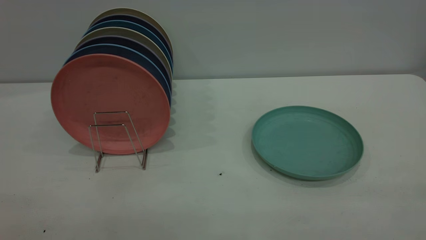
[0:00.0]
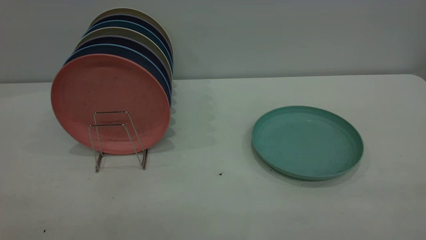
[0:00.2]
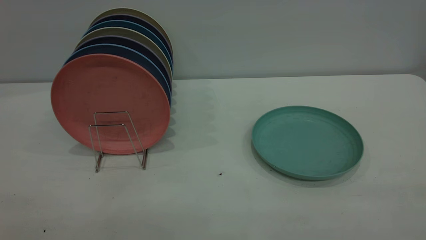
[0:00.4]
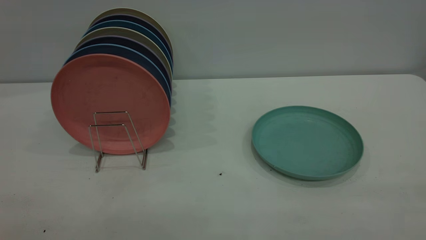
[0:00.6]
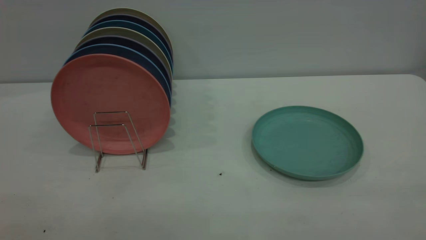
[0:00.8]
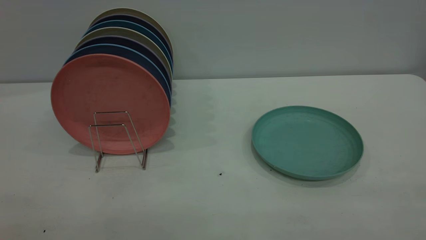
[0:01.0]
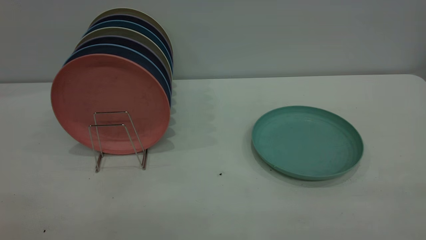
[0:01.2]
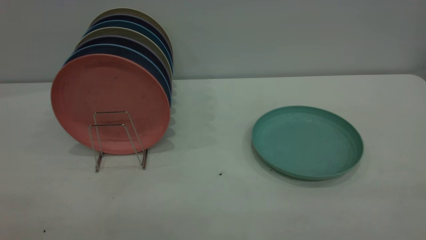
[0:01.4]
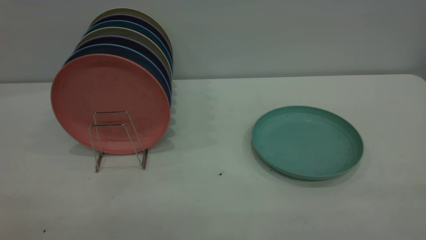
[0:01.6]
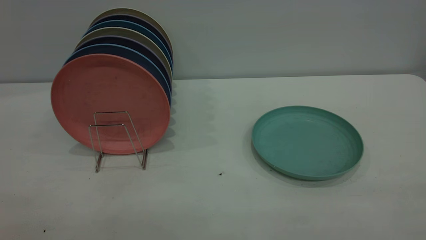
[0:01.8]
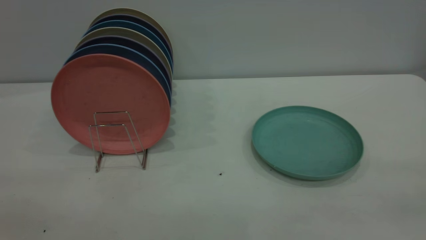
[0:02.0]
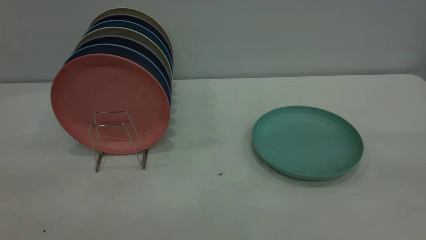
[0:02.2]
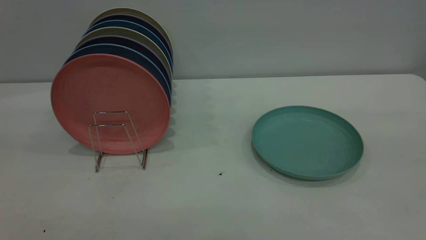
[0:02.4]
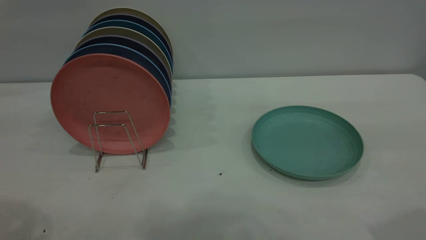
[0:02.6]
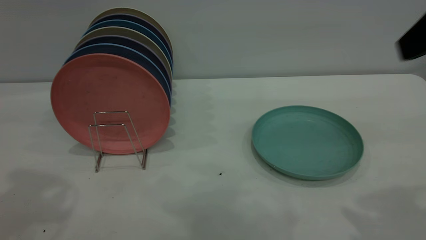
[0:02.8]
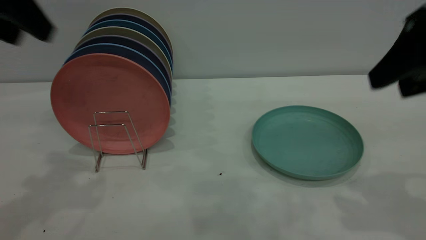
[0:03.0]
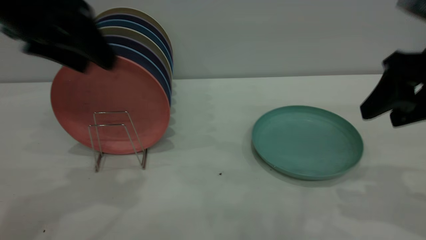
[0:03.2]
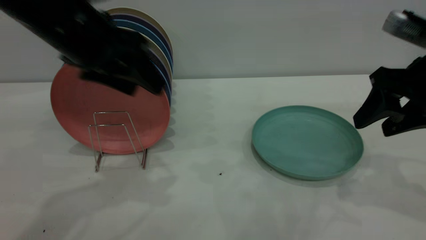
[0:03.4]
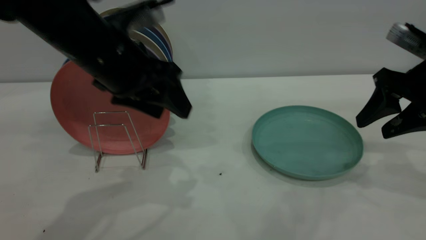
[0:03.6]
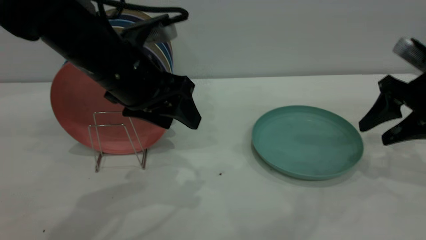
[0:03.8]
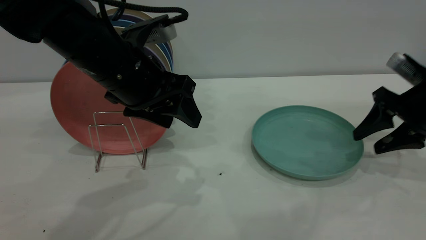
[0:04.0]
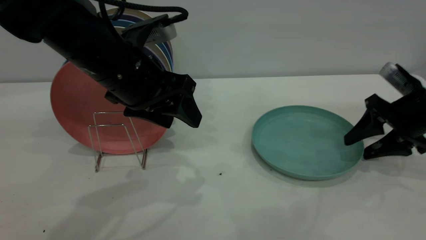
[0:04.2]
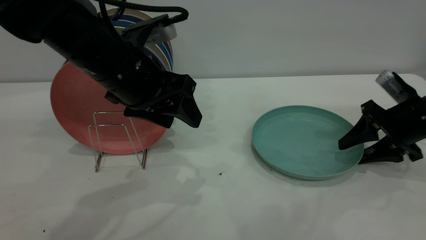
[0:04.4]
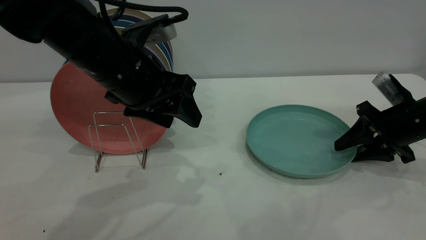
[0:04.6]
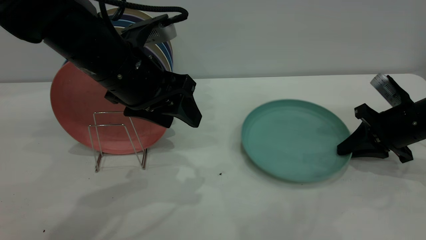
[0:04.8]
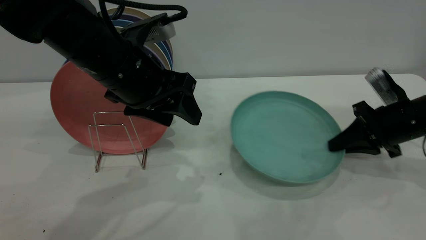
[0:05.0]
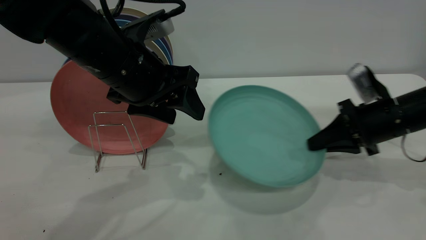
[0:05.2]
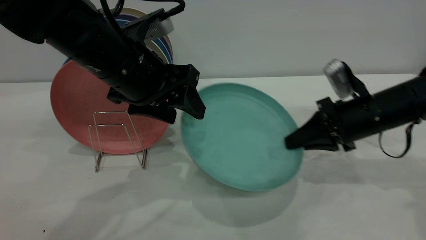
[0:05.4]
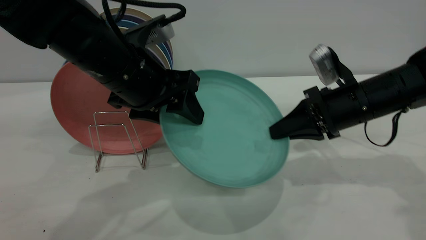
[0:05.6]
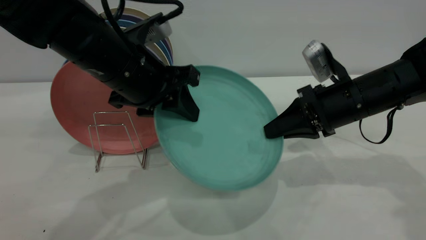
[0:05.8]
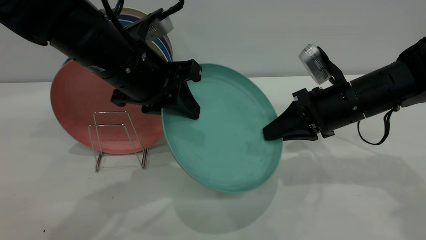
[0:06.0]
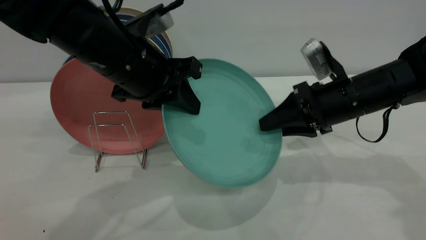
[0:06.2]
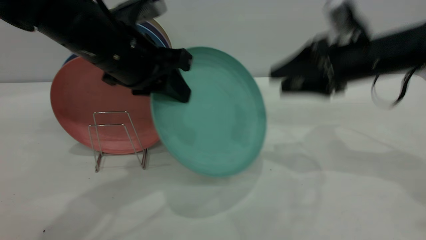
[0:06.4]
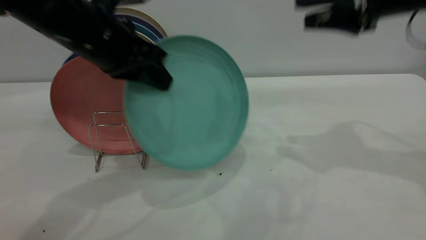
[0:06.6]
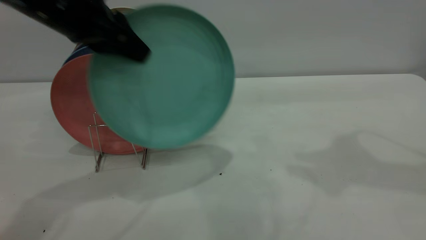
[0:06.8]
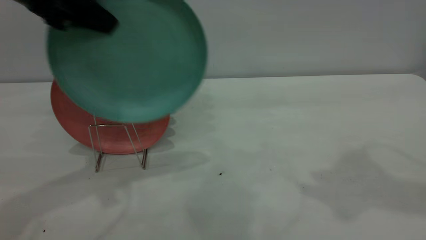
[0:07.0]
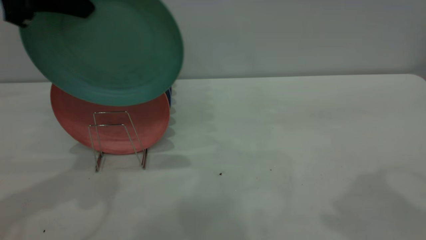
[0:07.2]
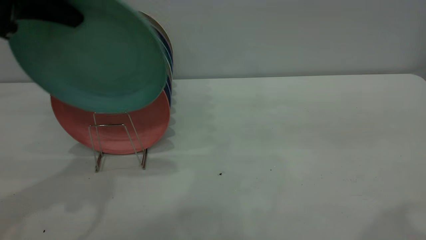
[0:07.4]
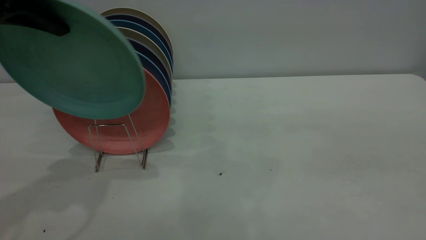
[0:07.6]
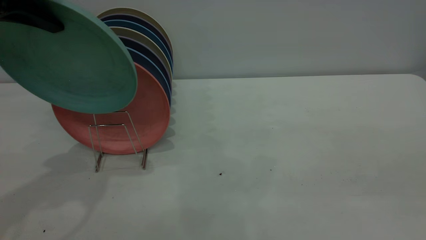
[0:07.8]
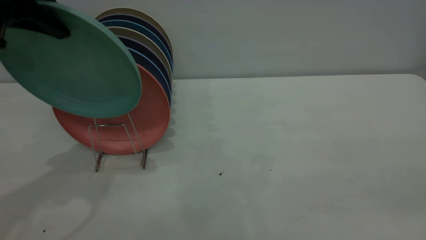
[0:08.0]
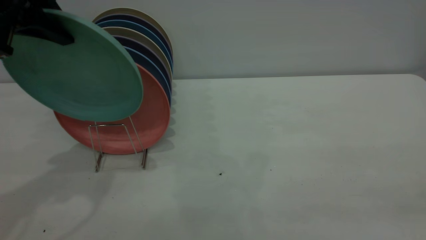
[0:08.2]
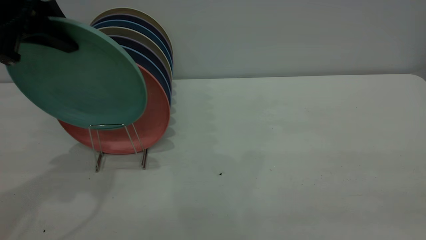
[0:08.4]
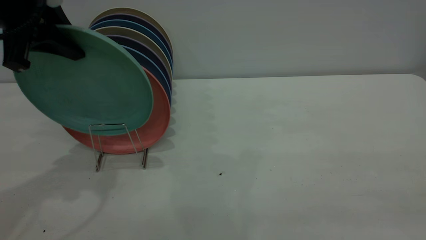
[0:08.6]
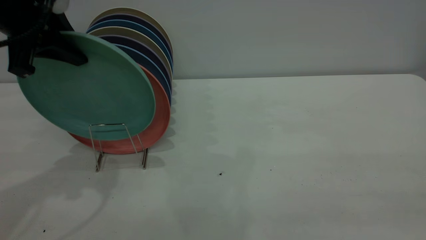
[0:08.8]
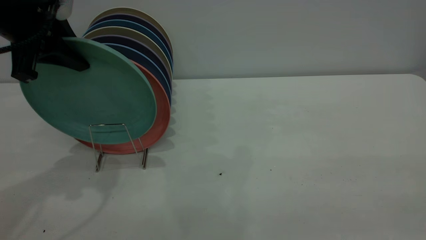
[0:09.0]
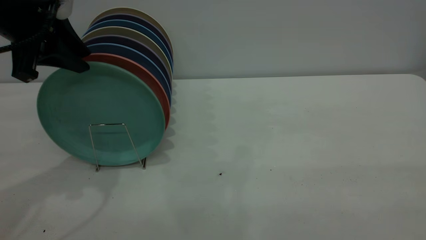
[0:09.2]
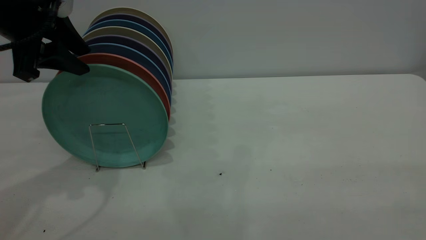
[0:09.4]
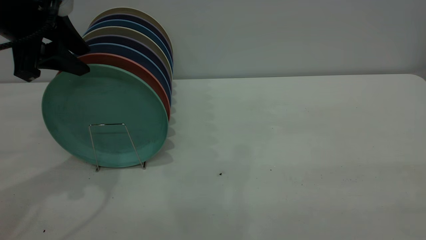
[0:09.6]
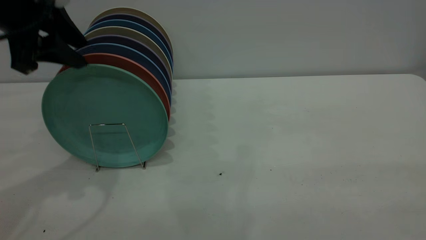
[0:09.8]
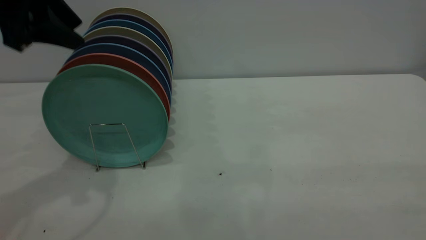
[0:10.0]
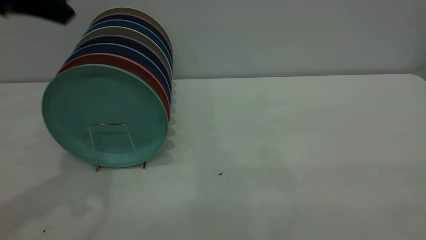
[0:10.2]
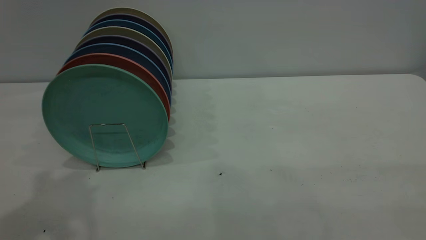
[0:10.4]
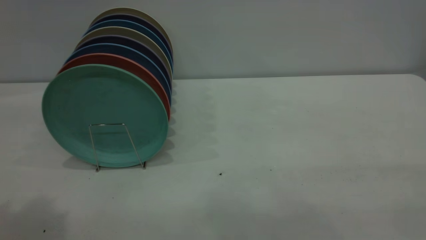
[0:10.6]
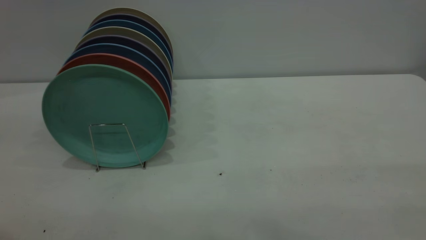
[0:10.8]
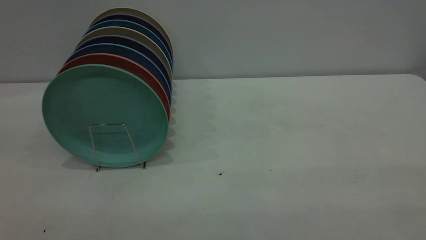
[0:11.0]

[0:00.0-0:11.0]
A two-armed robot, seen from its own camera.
Task of the whole recording: the right gripper grasp the green plate, the right gripper pass the green plate to the left gripper, and the left gripper place the green plate on the plate rack.
Step, 0.0 to 5.0 s: Pick up the plate with the right gripper.
Step, 5.2 to 6.2 s: Pass the plate from the right gripper to the left gripper.
Step, 6.4 to 10.0 s: Place the plate on the shelf.
0.0 to 1.6 s: The two grippers keep their place.
1.6 to 3.2 s: Both grippers travel together forward, approximately 30 cm.
3.2 to 4.8 s: The right gripper heads downward and forward, covering about 20 cm, and closes its fingers. Meanwhile the left gripper travels downward and to the right by roughly 10 cm.
4.8 to 6.2 s: The left gripper closes, while the right gripper goes approximately 15 cm to the left and upward, and opens up.
6.2 to 7.8 s: The left gripper moves to the left and upward, some 20 cm; the right gripper heads backward and upward, covering approximately 40 cm.
7.8 to 9.4 s: The left gripper is displaced downward by roughly 5 cm, and opens up.
9.4 to 11.0 s: The left gripper is displaced backward and upward by roughly 30 cm.

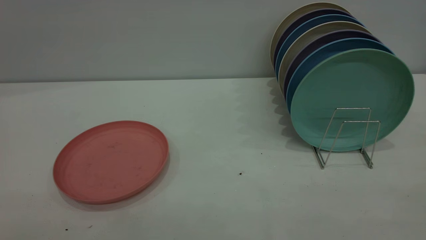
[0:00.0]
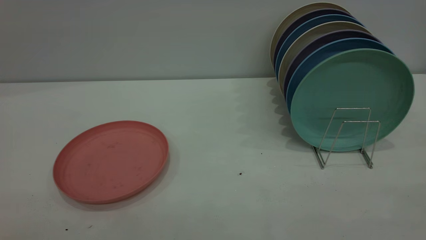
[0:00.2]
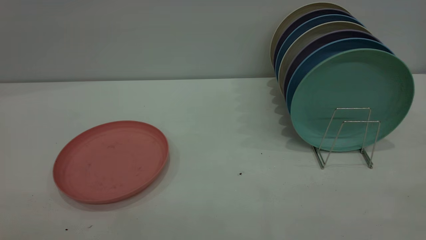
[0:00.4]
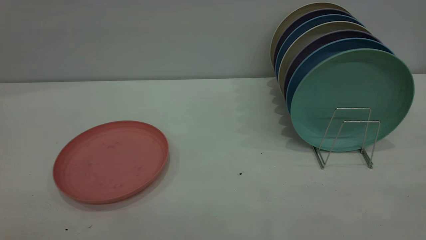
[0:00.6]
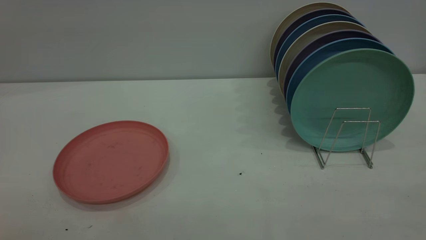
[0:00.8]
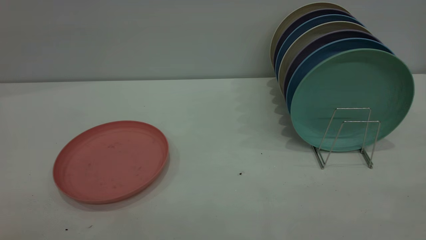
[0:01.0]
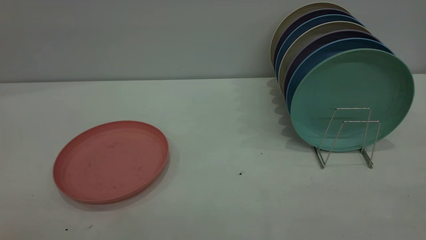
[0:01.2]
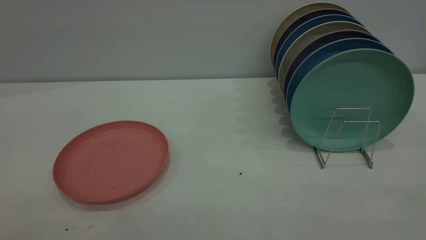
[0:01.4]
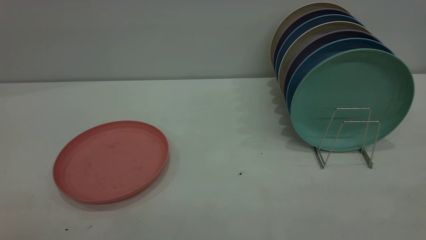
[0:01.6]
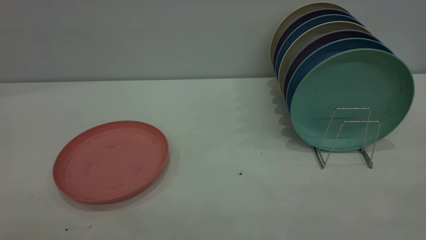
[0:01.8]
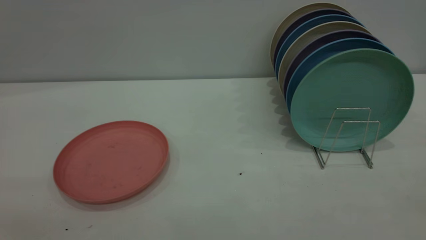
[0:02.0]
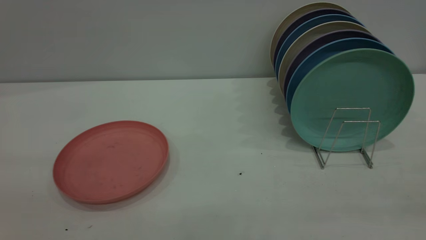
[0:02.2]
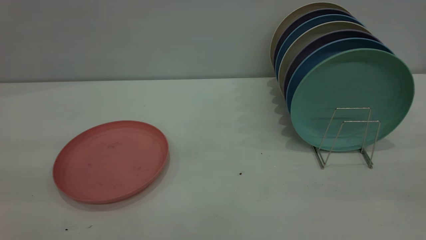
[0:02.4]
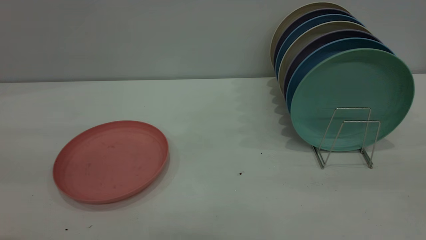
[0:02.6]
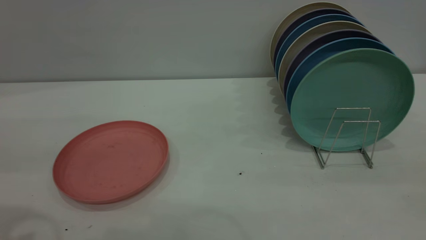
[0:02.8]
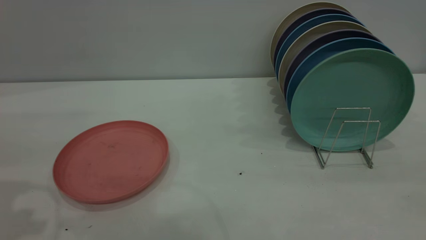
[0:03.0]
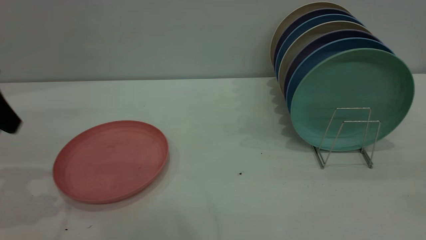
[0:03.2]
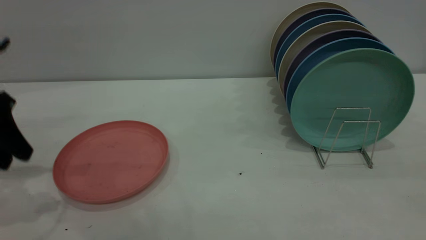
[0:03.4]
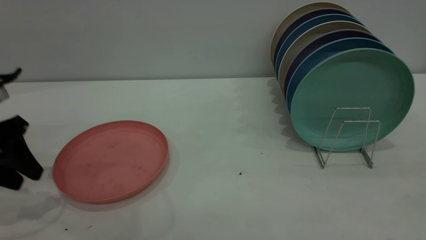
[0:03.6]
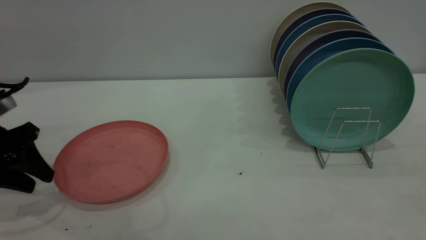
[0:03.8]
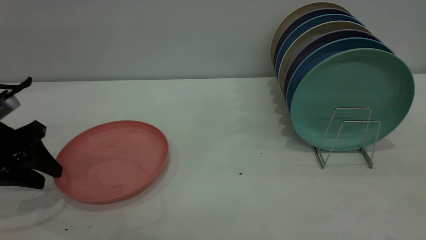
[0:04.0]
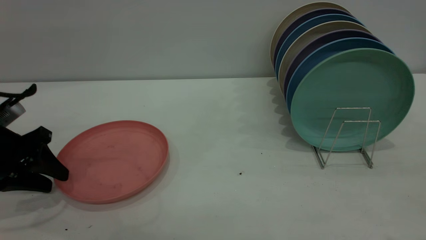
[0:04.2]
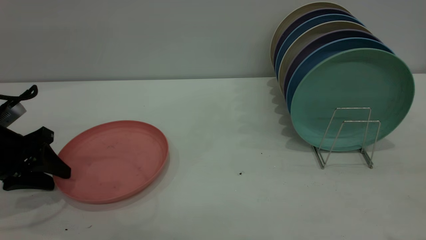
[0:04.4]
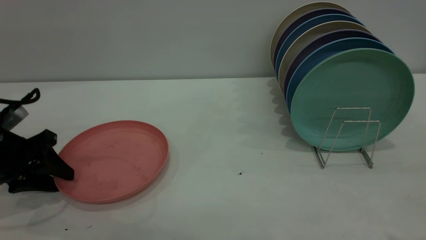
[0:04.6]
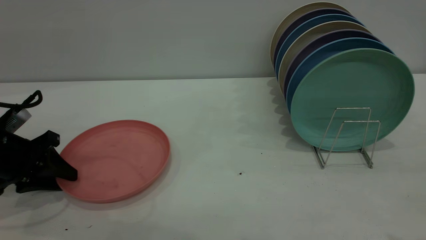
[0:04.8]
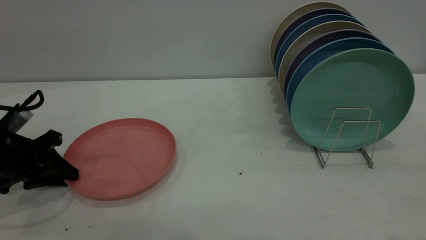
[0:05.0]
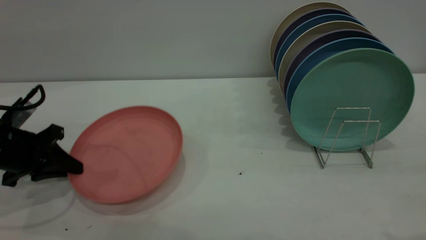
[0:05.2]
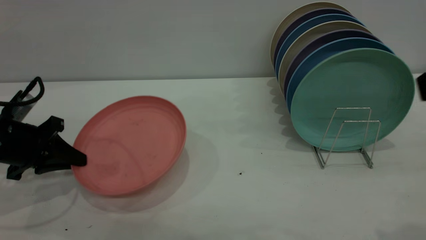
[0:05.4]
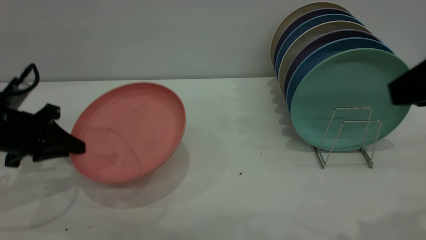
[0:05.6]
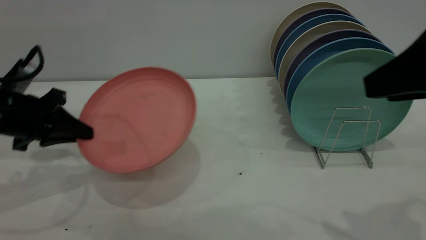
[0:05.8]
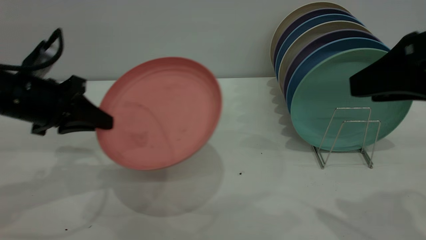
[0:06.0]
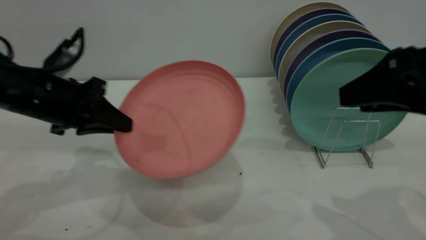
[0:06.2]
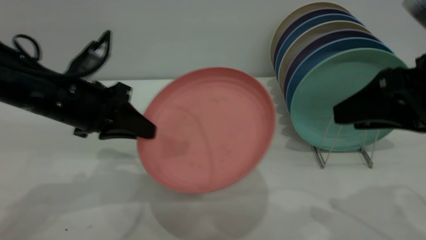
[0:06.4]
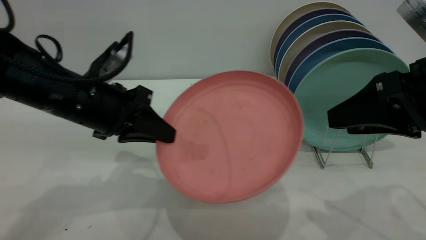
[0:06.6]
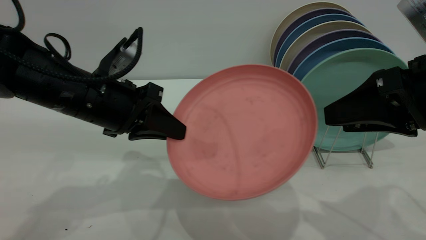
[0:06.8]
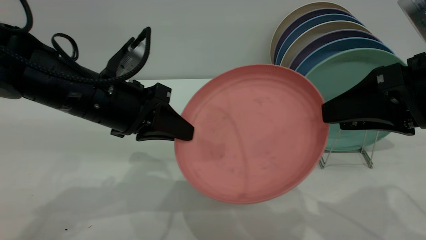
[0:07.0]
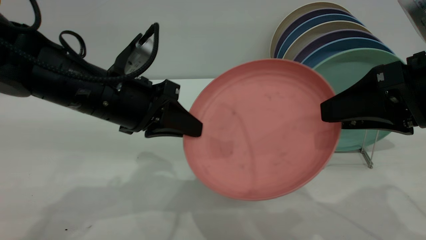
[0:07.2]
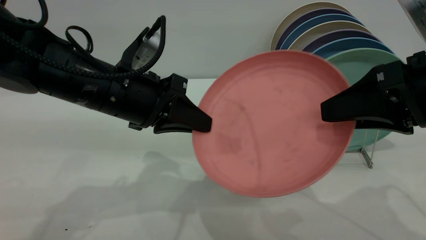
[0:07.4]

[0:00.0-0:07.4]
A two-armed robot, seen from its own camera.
Task of the whole recording: the left gripper grasp the pink plate, the left gripper pass the pink plate to the right gripper, and the right gripper place the pink plate on the plate rack.
Step, 0.0 to 5.0 s: Pick up the plate with the left gripper.
0.0 to 1.4 s: Both grippers stay about where they are.
3.0 to 4.4 s: The left gripper is displaced downward by roughly 15 cm.
4.4 to 6.0 s: The right gripper travels forward and downward by some 10 cm, while the left gripper travels to the right and upward by approximately 10 cm, and closes up.
6.0 to 7.4 s: The left gripper travels to the right by about 15 cm.
